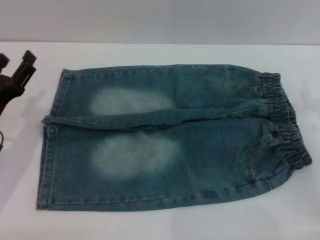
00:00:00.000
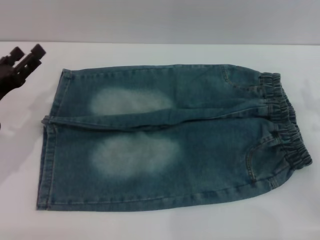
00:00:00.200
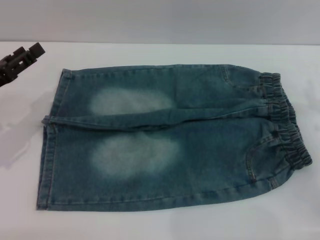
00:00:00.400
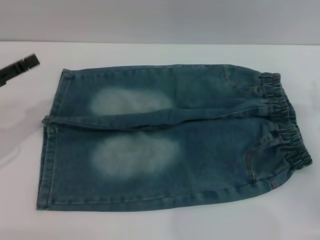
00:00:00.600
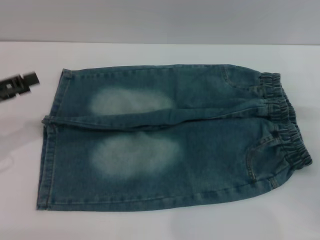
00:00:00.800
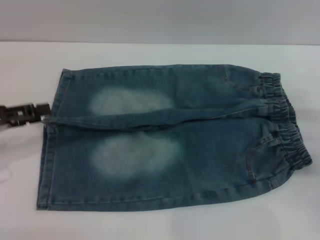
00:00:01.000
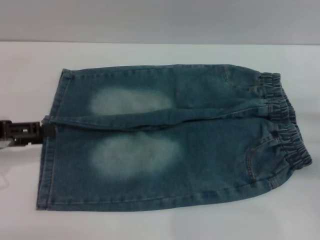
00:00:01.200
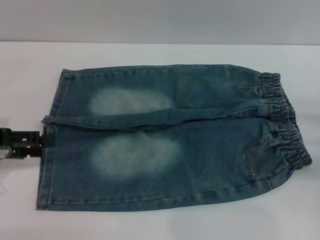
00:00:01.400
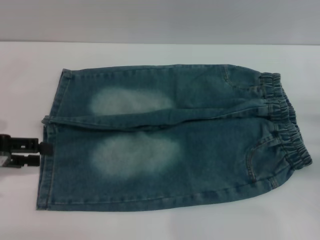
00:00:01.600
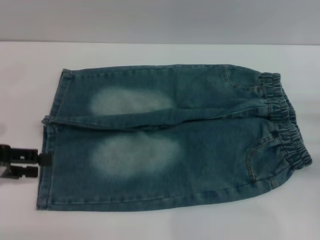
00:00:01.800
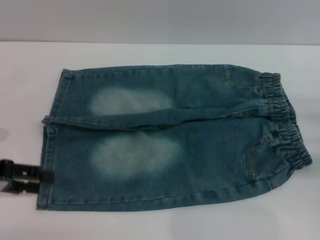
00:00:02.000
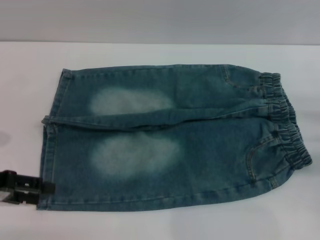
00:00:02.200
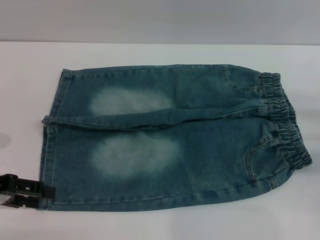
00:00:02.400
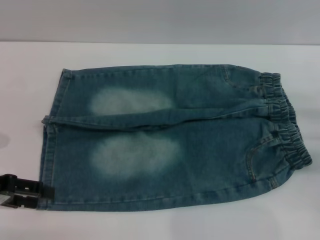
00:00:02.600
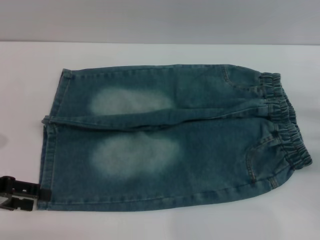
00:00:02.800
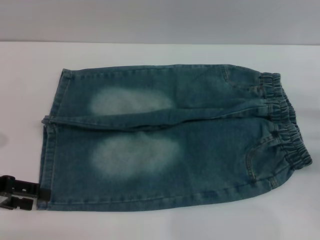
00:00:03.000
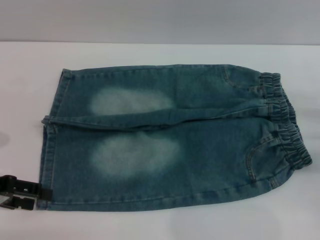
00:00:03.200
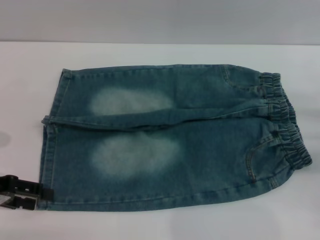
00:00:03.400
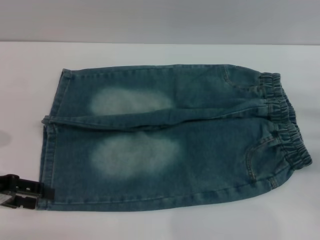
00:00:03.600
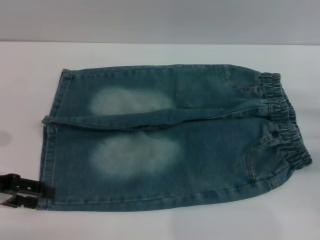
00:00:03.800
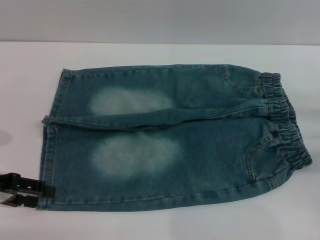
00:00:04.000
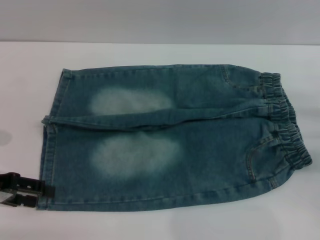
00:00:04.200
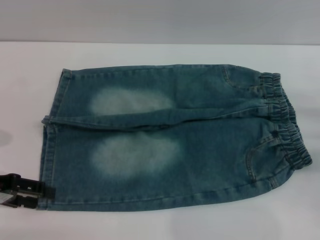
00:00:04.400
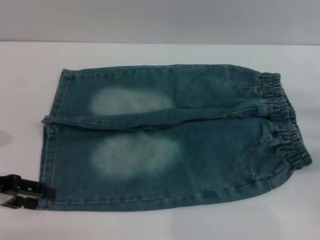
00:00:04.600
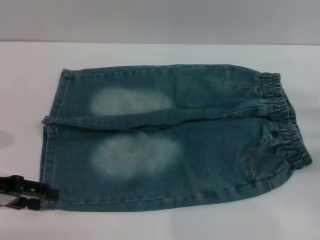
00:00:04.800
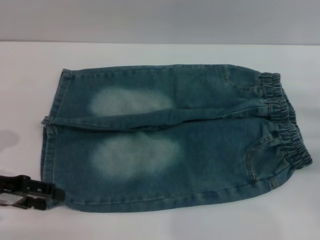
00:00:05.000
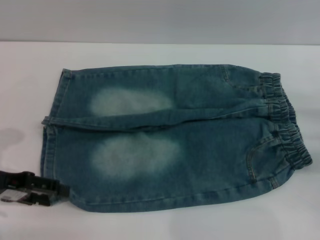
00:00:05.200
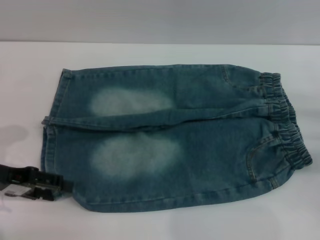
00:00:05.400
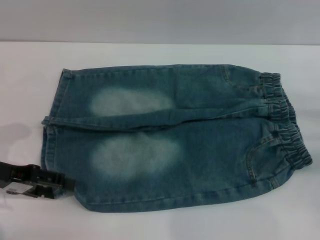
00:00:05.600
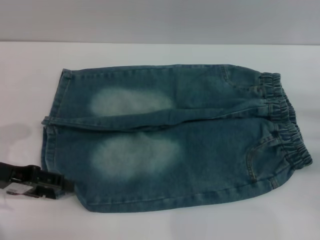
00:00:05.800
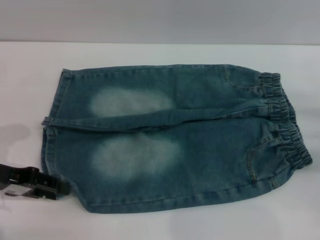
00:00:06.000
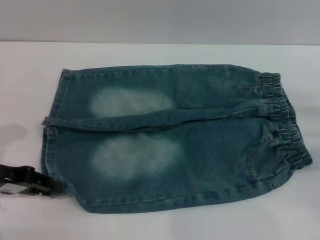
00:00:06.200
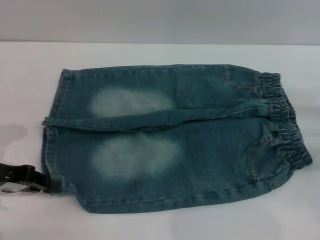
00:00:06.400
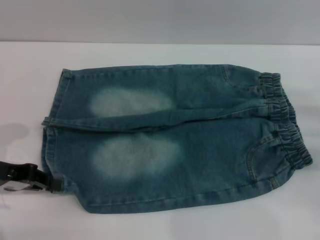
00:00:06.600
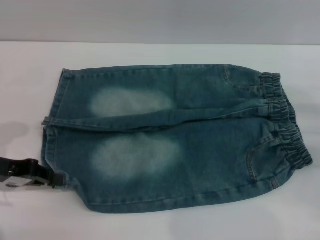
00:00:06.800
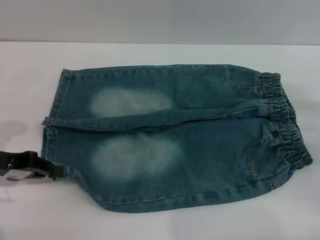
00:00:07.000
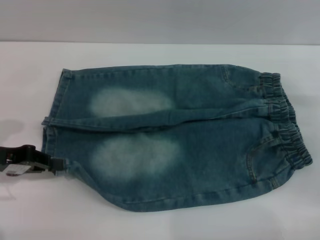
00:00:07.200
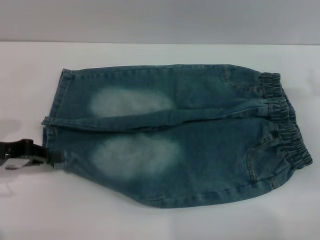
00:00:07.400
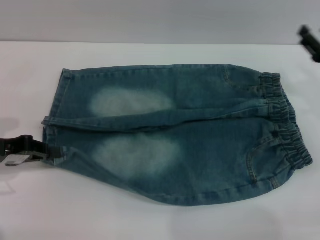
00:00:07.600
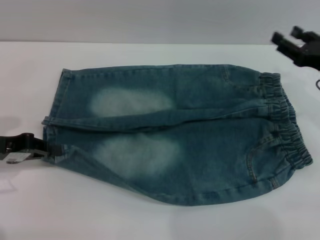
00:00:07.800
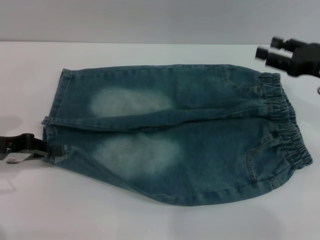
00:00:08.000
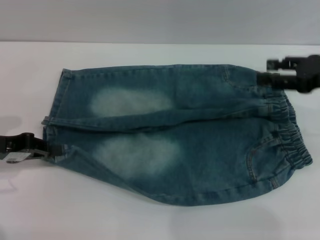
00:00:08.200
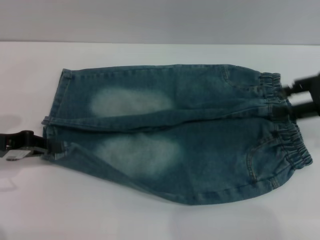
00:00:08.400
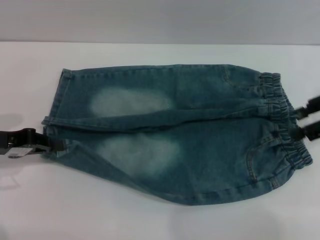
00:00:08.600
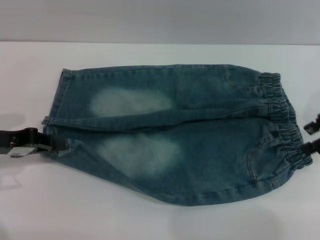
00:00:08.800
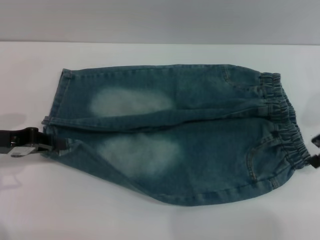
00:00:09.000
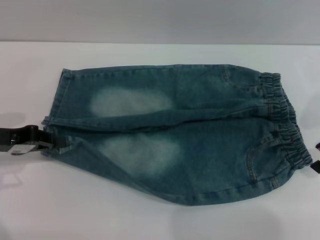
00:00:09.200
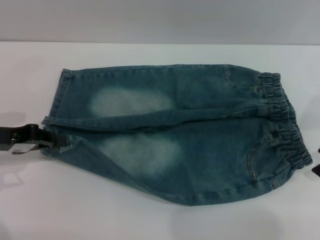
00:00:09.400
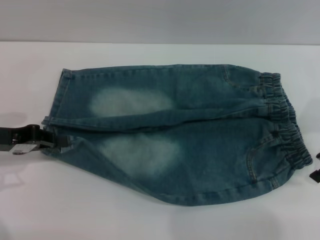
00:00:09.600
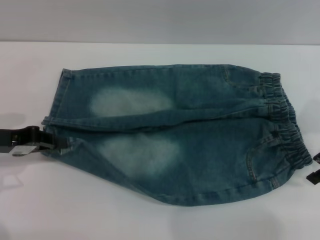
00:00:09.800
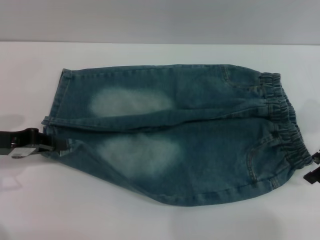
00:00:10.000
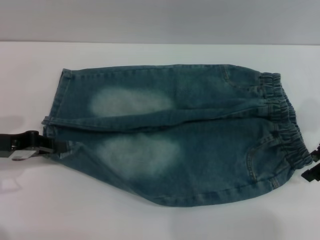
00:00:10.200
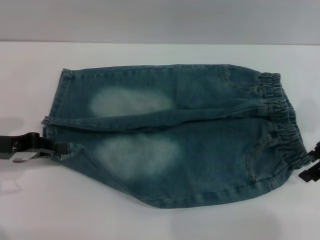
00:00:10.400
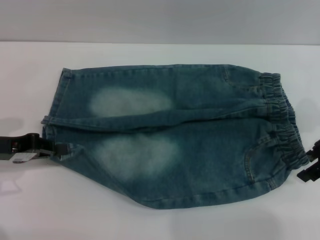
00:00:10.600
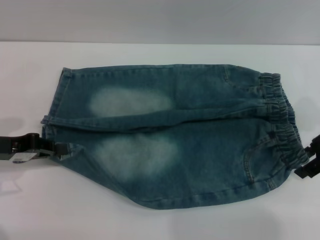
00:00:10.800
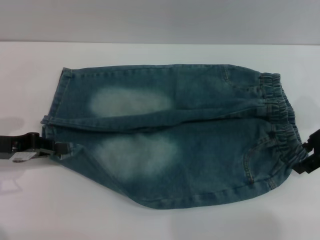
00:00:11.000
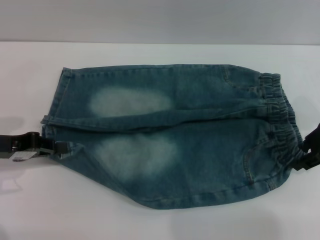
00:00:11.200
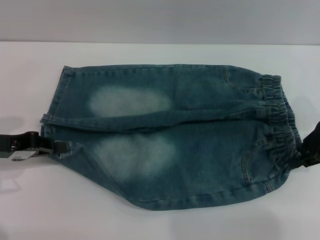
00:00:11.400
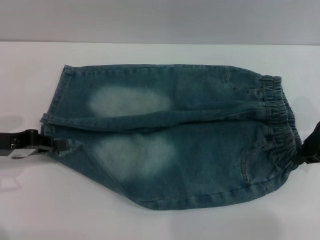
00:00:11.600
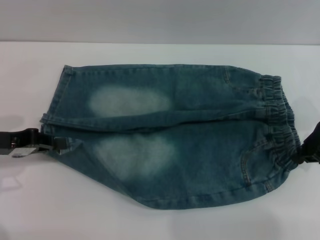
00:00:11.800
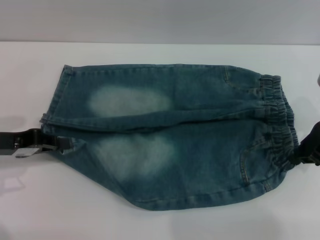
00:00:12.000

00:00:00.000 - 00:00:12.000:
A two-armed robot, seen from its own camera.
00:00:00.000 - 00:00:01.600: The left gripper moves upward and to the left, approximately 10 cm.
00:00:01.600 - 00:00:03.000: The grippers move only a little.
00:00:03.000 - 00:00:04.400: The two grippers keep their place.
00:00:04.400 - 00:00:06.000: The grippers make only small movements.
00:00:06.000 - 00:00:07.600: The right gripper travels forward by about 5 cm, while the left gripper closes.
00:00:07.600 - 00:00:09.000: The right gripper is displaced upward by some 10 cm.
00:00:09.000 - 00:00:10.400: There are only small adjustments of the grippers.
00:00:10.400 - 00:00:12.000: The right gripper closes its fingers.

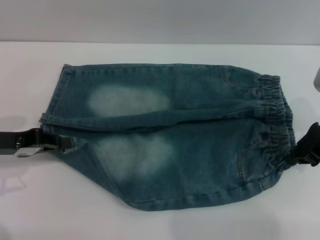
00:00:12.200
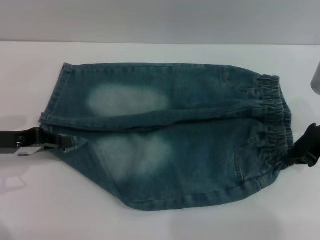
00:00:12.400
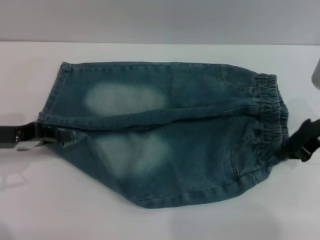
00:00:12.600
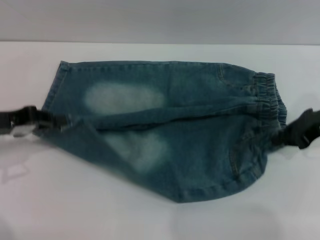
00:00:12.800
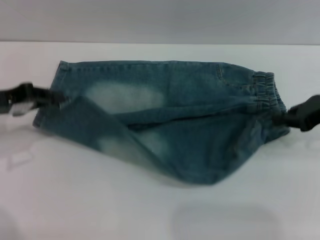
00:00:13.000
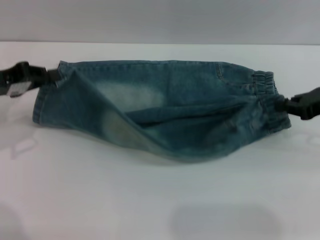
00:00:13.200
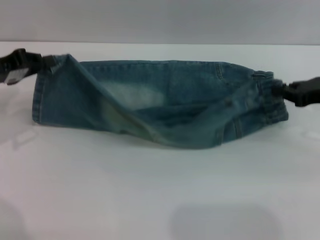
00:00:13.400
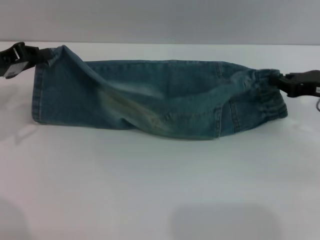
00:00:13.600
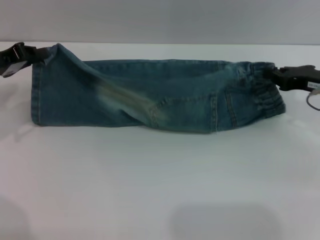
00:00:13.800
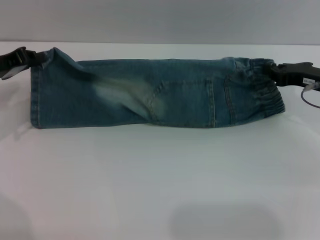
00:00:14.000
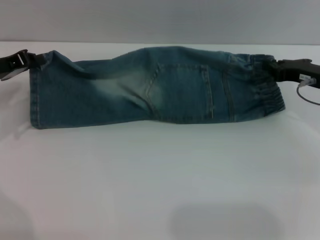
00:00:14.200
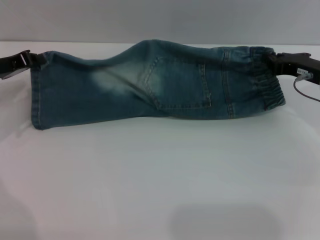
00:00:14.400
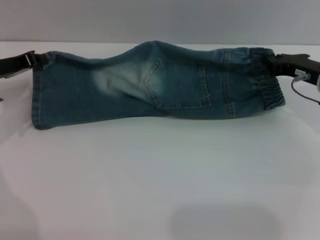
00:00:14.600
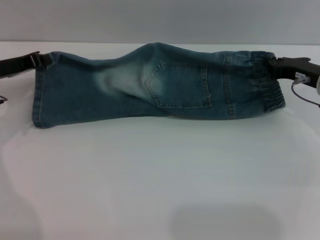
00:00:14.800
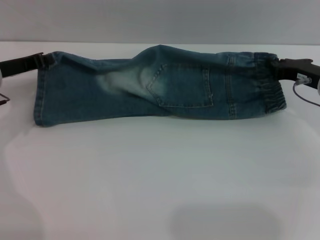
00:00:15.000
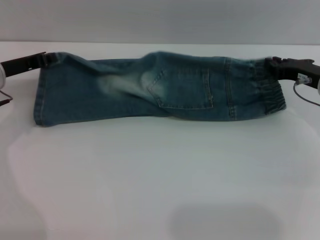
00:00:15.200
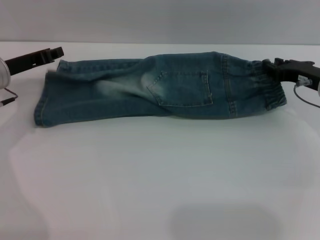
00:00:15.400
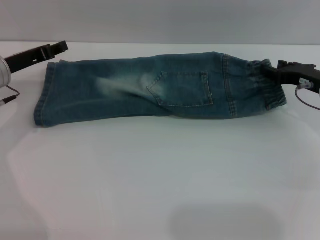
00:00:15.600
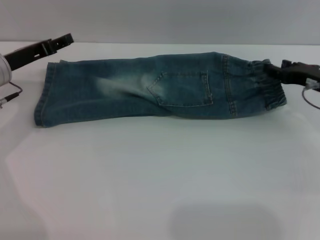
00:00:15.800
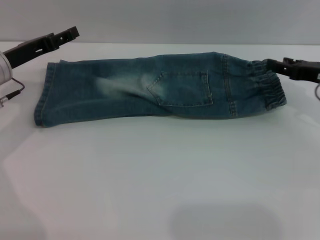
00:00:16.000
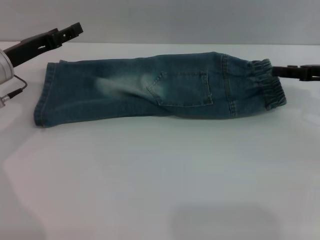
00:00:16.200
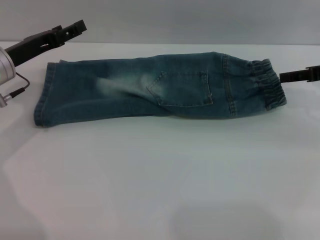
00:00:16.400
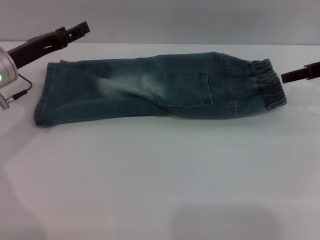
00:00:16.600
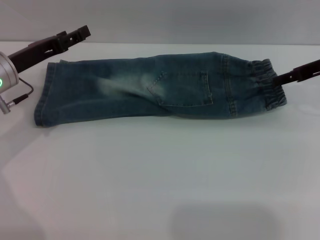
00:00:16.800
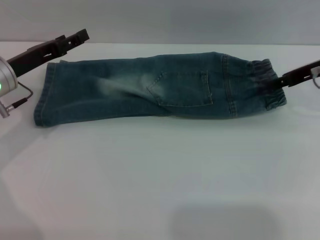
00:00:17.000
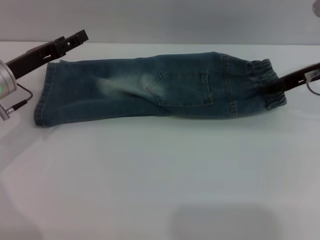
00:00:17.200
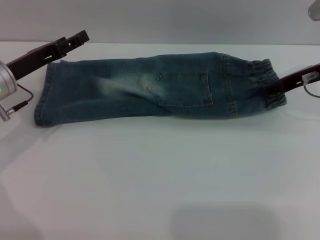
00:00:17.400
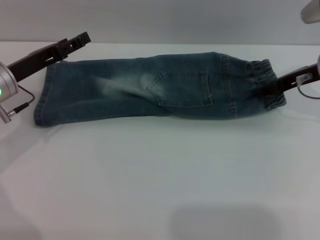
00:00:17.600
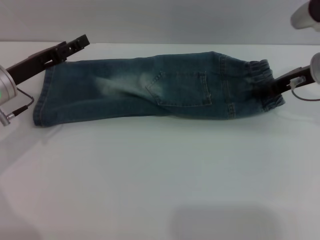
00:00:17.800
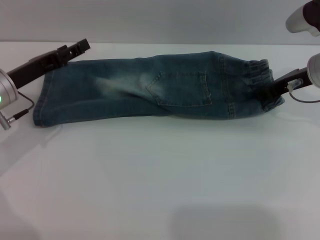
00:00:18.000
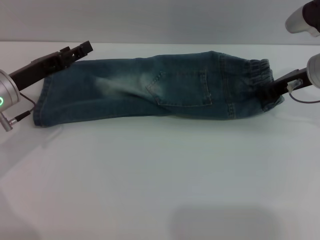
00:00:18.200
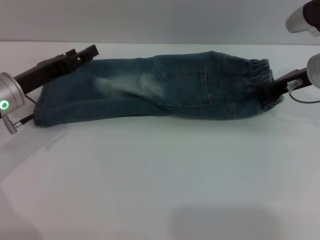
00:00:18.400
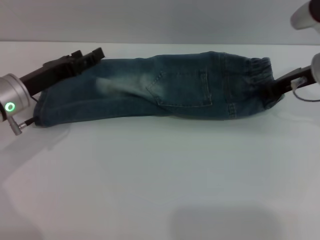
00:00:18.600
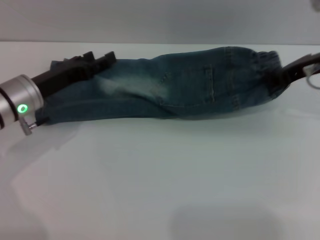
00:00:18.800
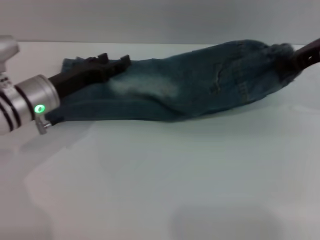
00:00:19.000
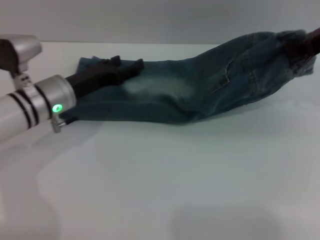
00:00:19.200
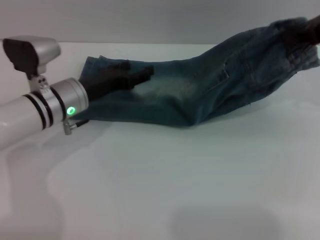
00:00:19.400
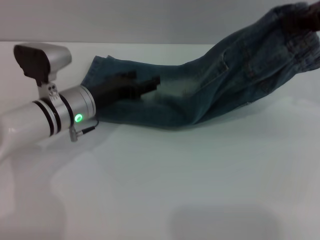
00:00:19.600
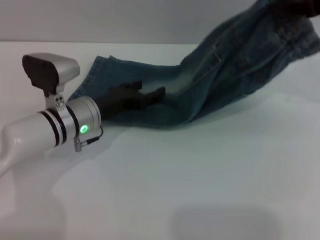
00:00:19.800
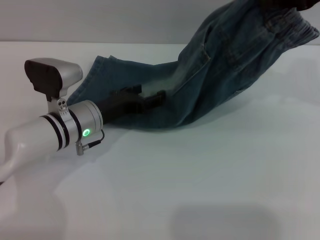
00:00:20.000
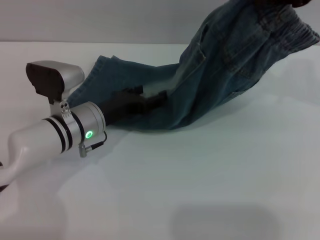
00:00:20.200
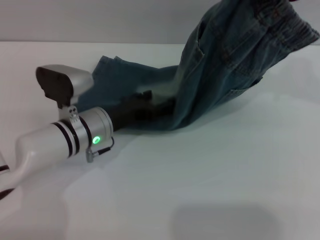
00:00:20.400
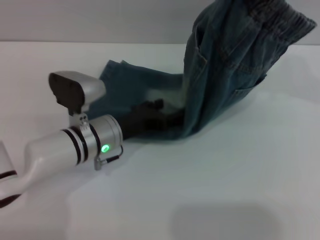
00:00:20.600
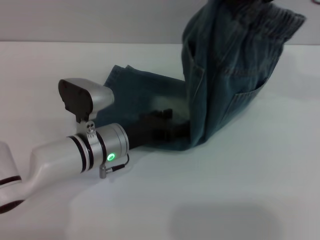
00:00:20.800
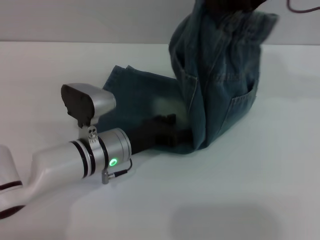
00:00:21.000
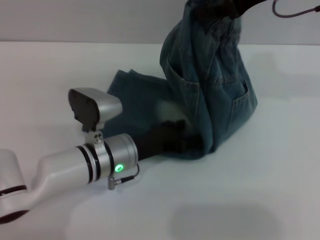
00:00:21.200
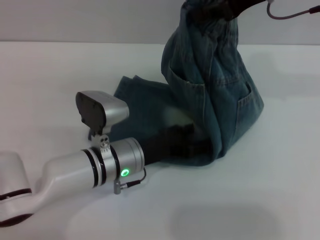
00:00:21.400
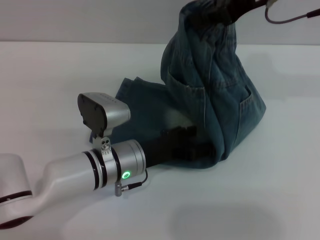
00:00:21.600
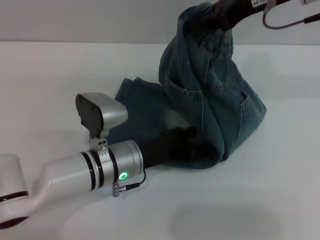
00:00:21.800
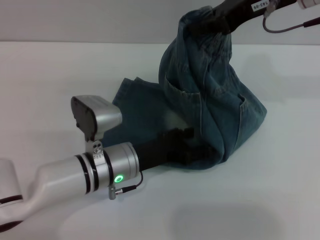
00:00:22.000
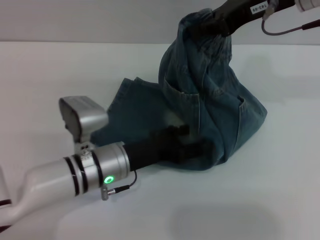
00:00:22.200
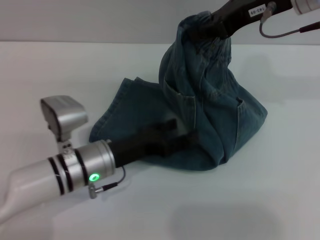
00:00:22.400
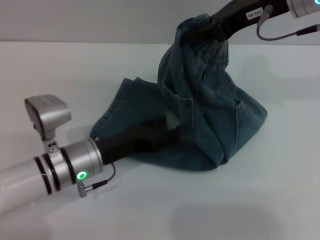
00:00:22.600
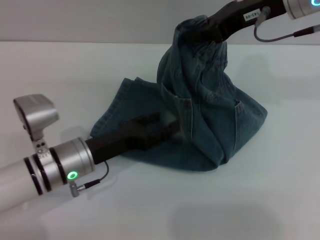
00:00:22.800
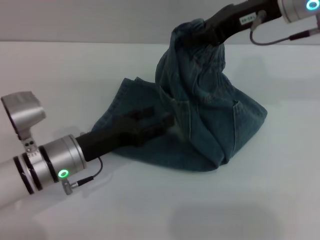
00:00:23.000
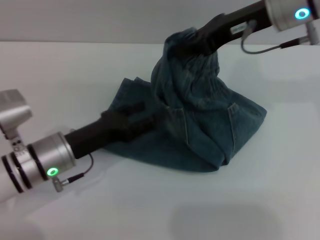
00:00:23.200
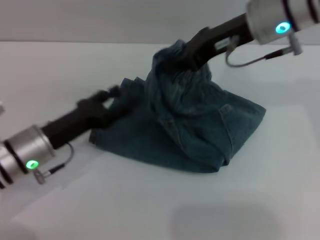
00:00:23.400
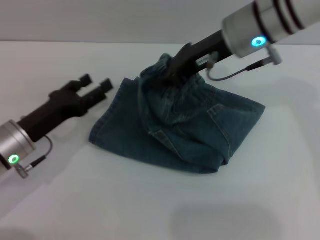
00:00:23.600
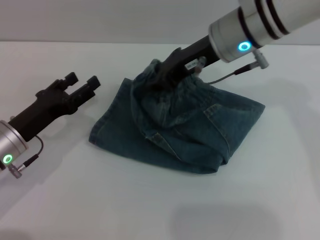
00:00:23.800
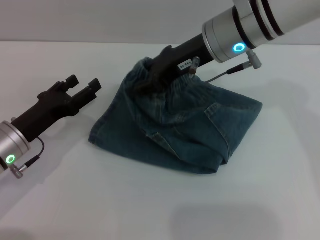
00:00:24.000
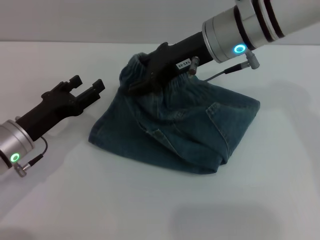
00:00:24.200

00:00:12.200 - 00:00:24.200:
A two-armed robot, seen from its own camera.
Step, 00:00:12.200 - 00:00:15.600: Fold the bottom of the pants upward with both grippers.
00:00:12.200 - 00:00:13.800: The left gripper heads forward, covering some 5 cm.
00:00:13.800 - 00:00:15.200: The left gripper moves roughly 5 cm.
00:00:15.200 - 00:00:16.600: The right gripper travels upward by roughly 10 cm, and opens its fingers, while the left gripper opens its fingers.
00:00:16.600 - 00:00:18.200: The right gripper travels to the left by about 5 cm, and closes.
00:00:18.200 - 00:00:19.800: The right gripper heads upward, covering roughly 15 cm, while the left gripper moves to the right, approximately 10 cm.
00:00:19.800 - 00:00:21.200: The left gripper goes roughly 5 cm to the right. The right gripper moves to the left, about 10 cm.
00:00:21.200 - 00:00:22.600: The left gripper changes place by approximately 5 cm.
00:00:22.600 - 00:00:24.200: The right gripper goes about 10 cm to the left and downward, and opens its fingers, while the left gripper moves to the left, approximately 10 cm.
